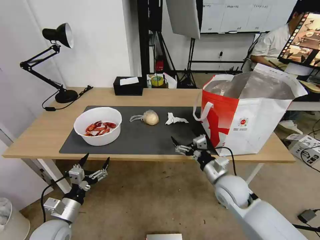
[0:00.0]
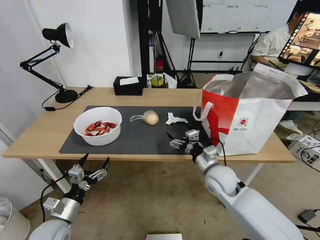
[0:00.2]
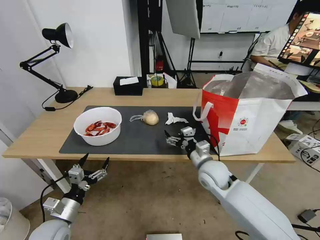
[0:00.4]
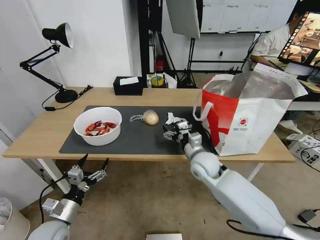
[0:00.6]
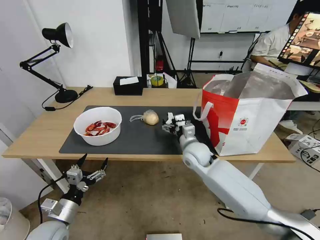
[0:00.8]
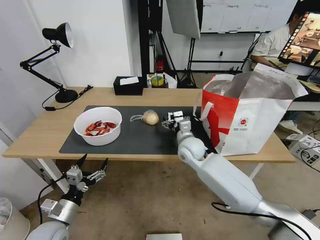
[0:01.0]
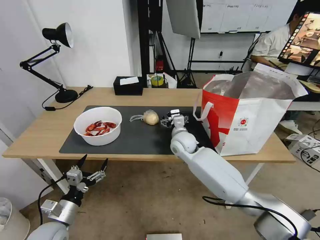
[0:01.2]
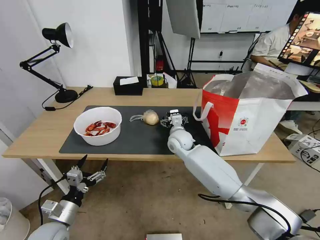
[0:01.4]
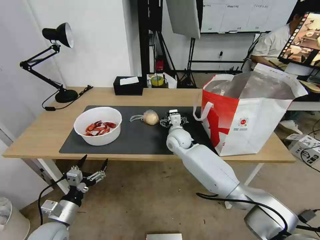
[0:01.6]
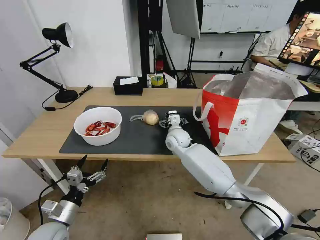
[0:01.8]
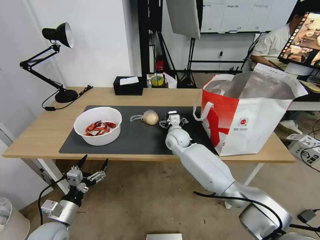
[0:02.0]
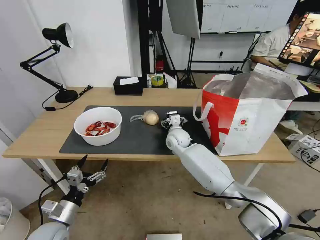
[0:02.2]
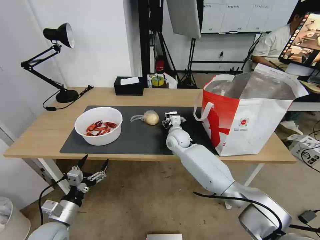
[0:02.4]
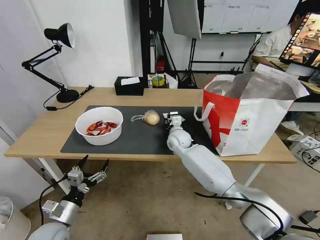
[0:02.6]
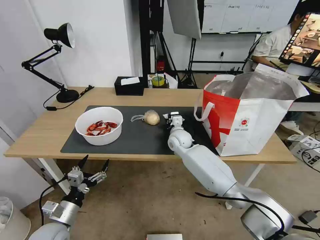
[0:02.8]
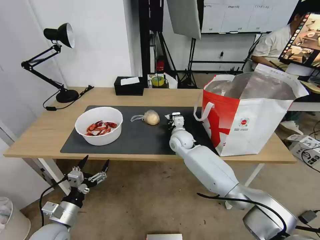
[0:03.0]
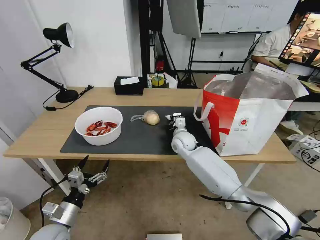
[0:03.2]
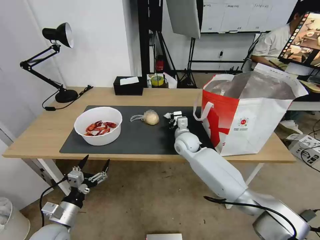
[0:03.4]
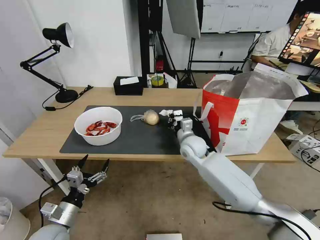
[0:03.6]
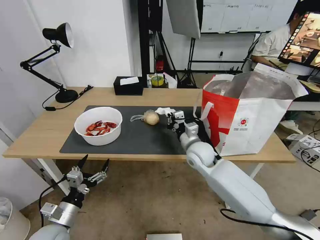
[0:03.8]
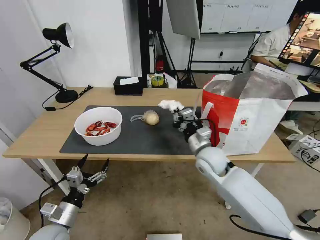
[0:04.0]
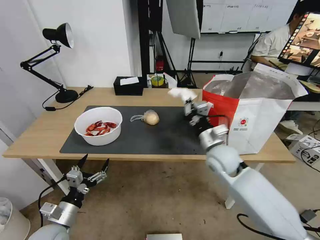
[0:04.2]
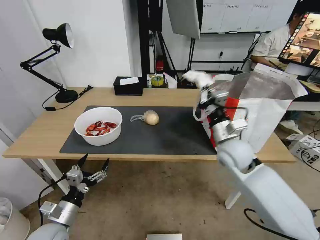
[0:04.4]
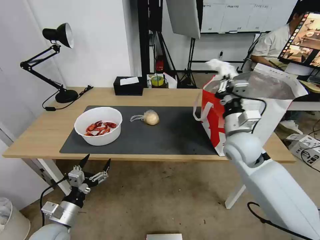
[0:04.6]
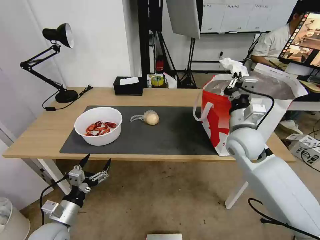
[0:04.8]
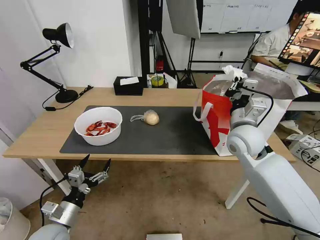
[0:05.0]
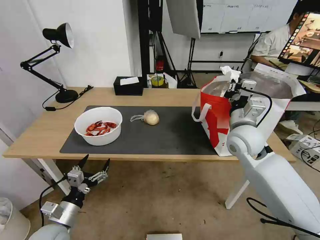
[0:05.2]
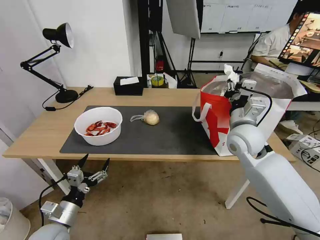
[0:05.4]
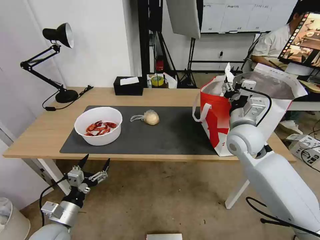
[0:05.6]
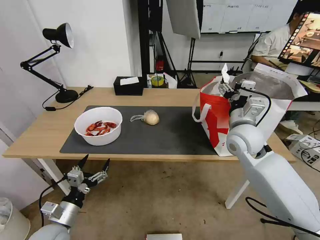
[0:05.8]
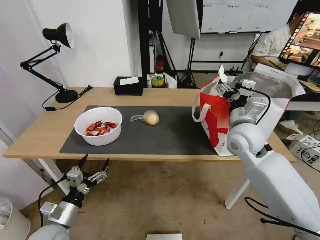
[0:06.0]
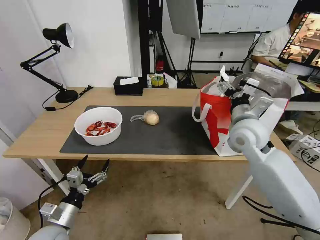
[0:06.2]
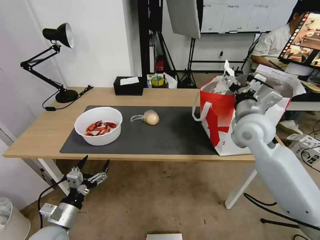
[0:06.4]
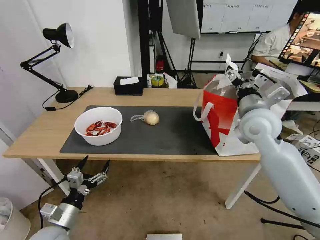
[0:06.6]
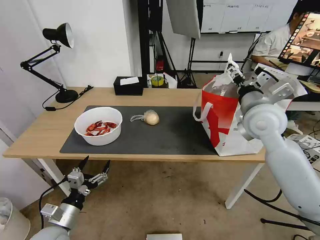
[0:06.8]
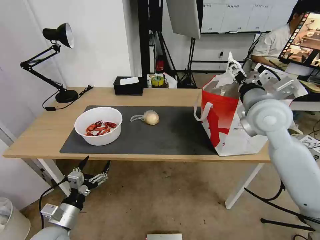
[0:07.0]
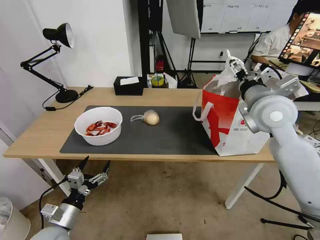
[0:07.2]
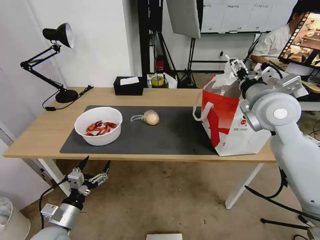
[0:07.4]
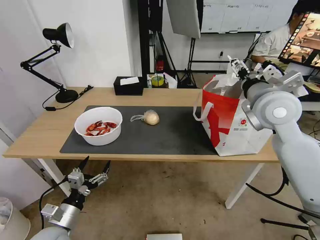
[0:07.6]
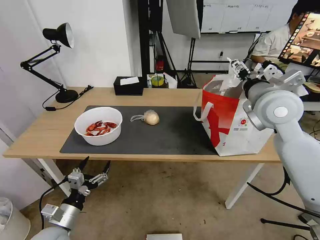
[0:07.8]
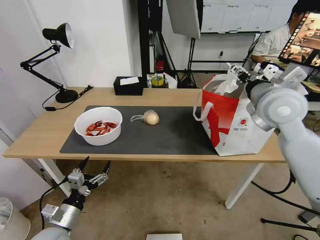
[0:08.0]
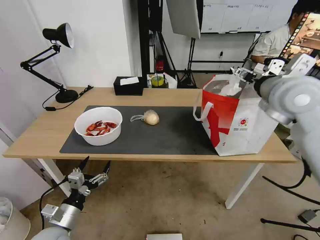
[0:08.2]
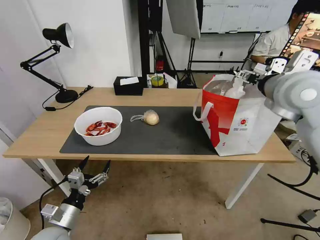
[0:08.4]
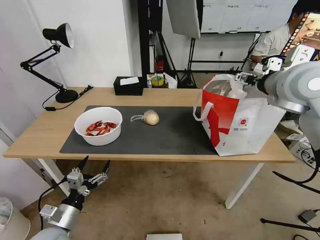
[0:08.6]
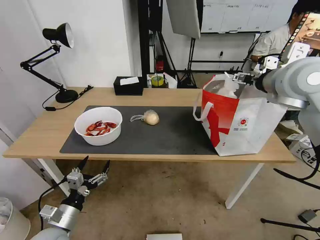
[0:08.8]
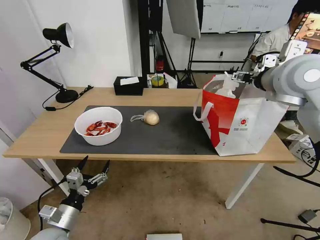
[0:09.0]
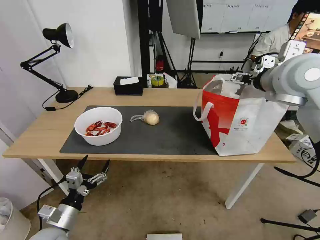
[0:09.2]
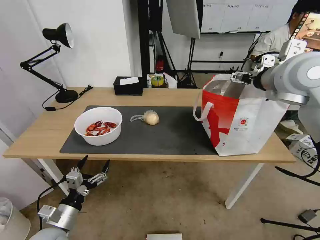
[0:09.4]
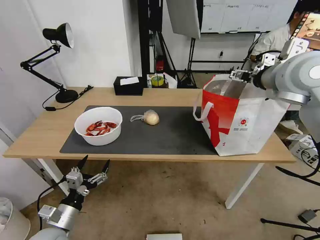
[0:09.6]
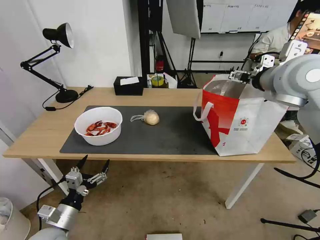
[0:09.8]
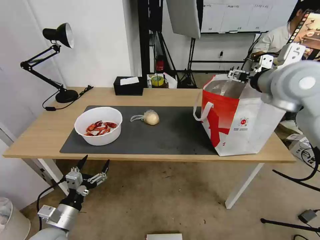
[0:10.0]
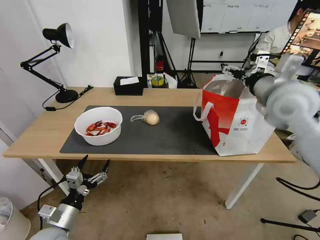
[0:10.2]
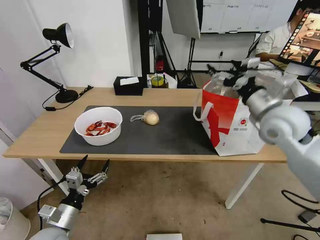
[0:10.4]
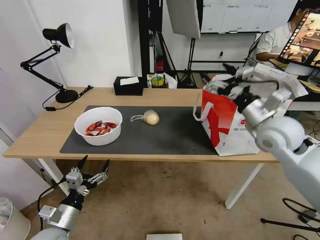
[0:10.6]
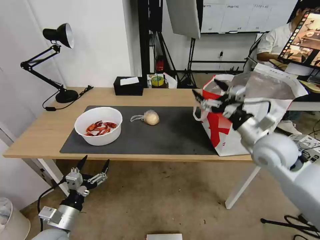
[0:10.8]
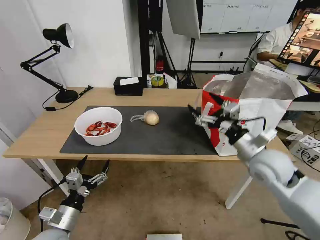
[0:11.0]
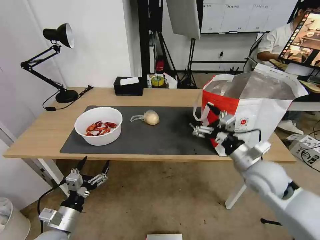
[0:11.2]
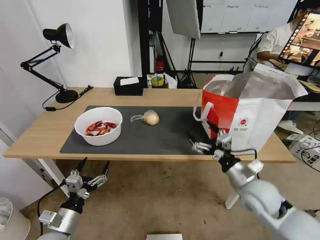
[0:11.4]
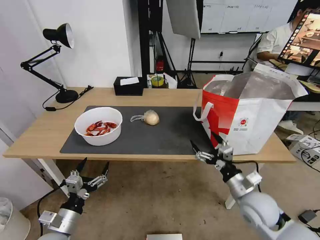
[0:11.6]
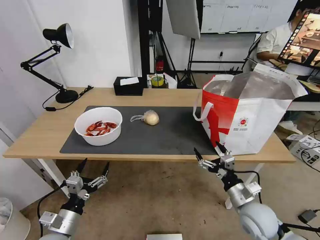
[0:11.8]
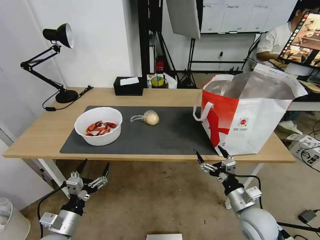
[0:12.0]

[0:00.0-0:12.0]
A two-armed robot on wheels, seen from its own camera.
Task of the whole recording: Pick up the trash from the table and place it into the takeout bag.
0:00.0 to 0:01.6: The right gripper shifts about 25 cm forward and to the left.
0:01.6 to 0:03.0: The right gripper closes up.
0:03.0 to 0:04.4: The right gripper goes approximately 20 cm backward, to the right and upward.
0:04.4 to 0:06.0: The right gripper ends up approximately 5 cm from where it was, and opens up.
0:06.0 to 0:07.6: The right gripper heads upward, covering approximately 10 cm.
0:07.6 to 0:09.0: The right gripper moves upward, approximately 10 cm.
0:09.0 to 0:10.4: The right gripper moves downward, some 10 cm.
0:10.4 to 0:12.0: The right gripper heads downward and backward, covering some 30 cm.

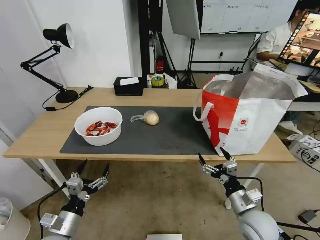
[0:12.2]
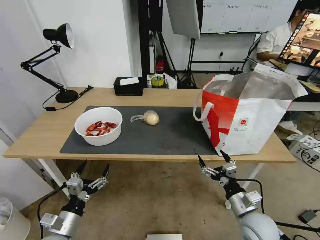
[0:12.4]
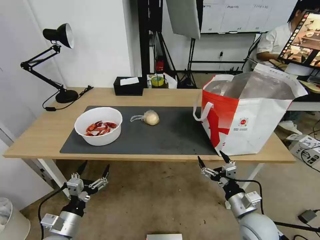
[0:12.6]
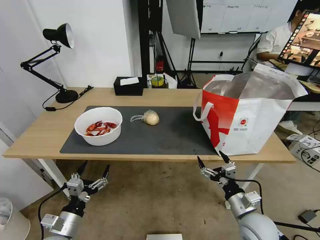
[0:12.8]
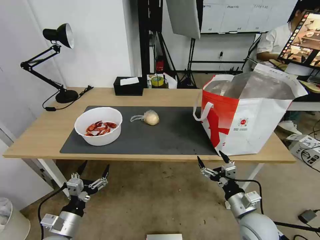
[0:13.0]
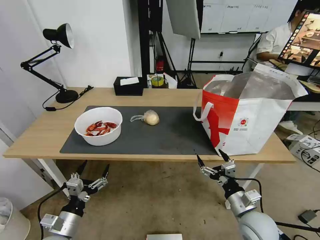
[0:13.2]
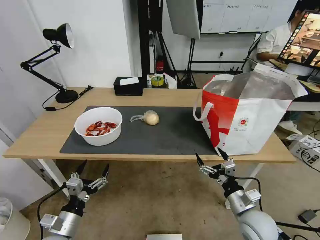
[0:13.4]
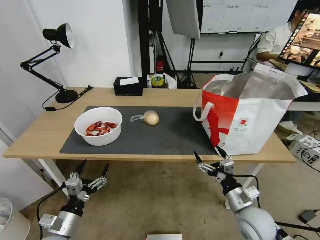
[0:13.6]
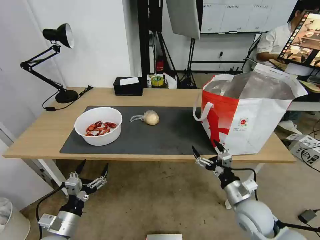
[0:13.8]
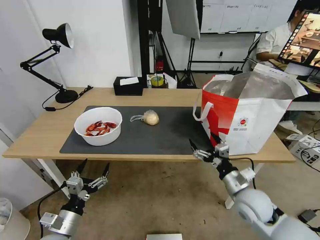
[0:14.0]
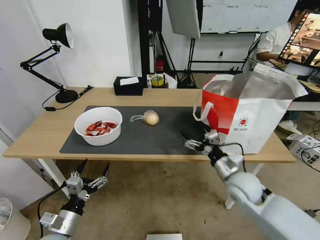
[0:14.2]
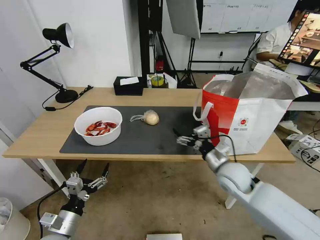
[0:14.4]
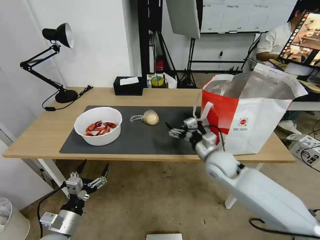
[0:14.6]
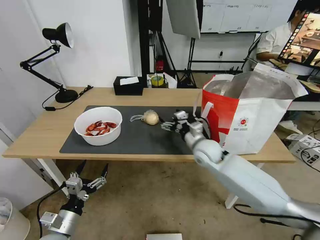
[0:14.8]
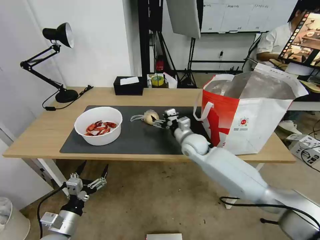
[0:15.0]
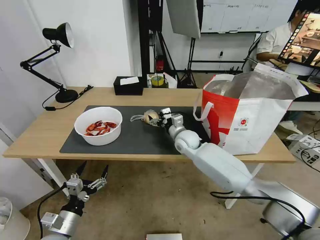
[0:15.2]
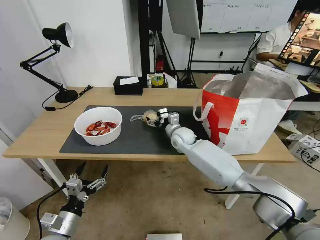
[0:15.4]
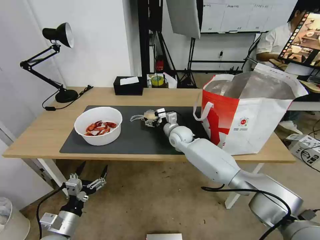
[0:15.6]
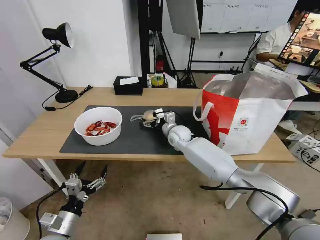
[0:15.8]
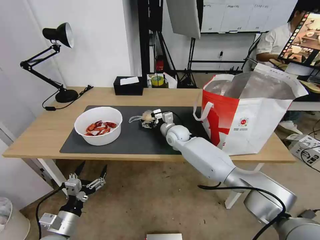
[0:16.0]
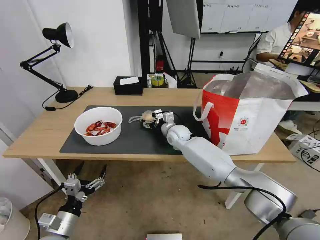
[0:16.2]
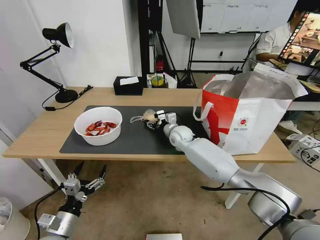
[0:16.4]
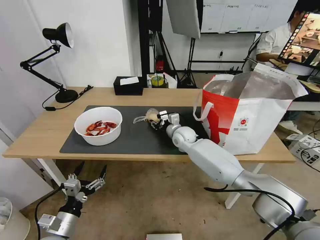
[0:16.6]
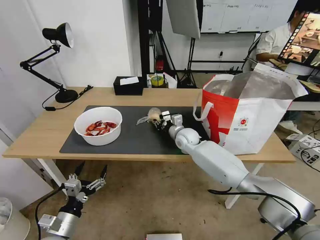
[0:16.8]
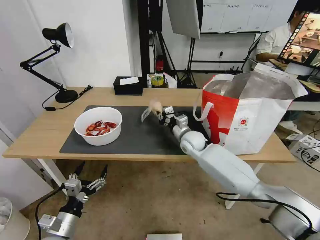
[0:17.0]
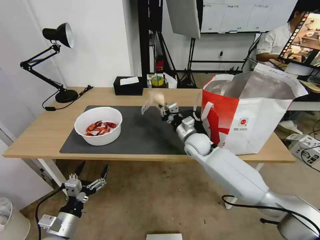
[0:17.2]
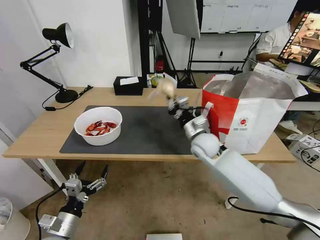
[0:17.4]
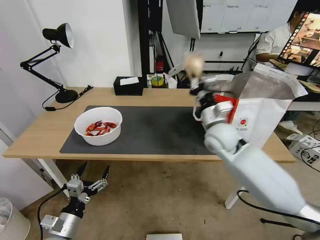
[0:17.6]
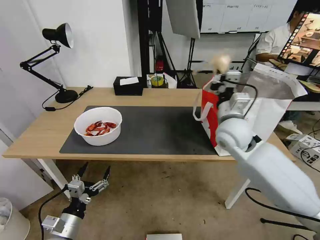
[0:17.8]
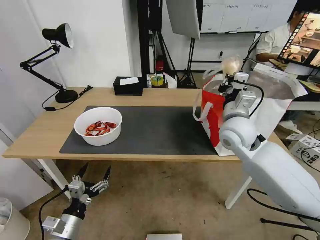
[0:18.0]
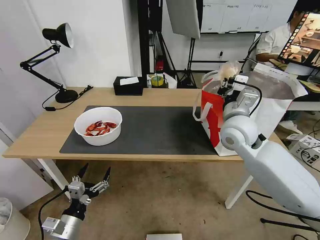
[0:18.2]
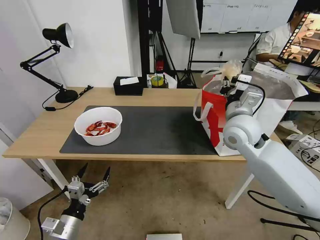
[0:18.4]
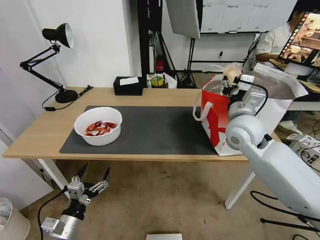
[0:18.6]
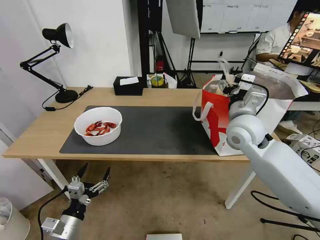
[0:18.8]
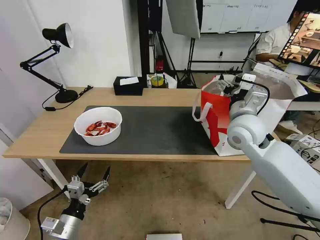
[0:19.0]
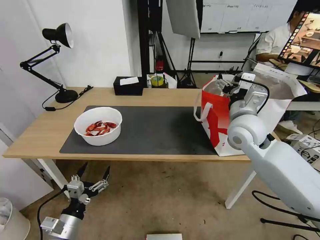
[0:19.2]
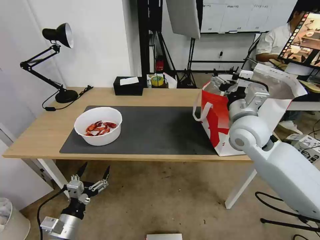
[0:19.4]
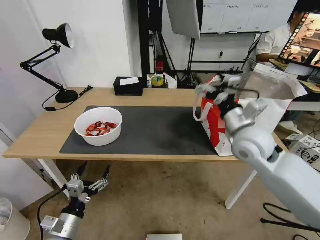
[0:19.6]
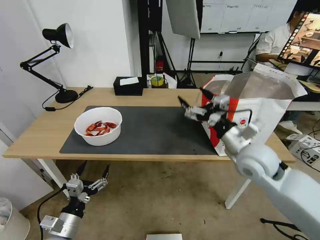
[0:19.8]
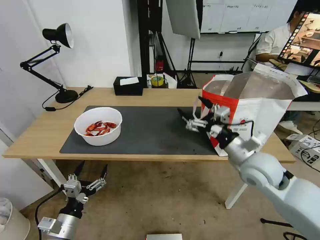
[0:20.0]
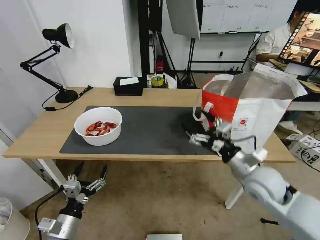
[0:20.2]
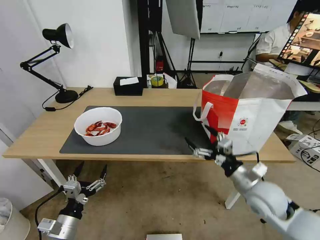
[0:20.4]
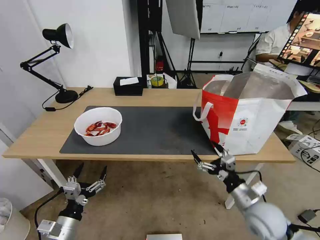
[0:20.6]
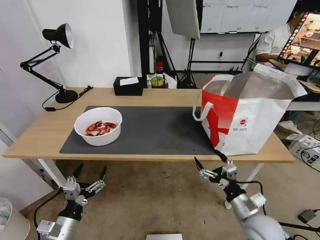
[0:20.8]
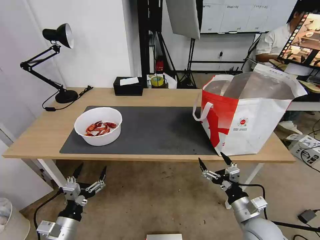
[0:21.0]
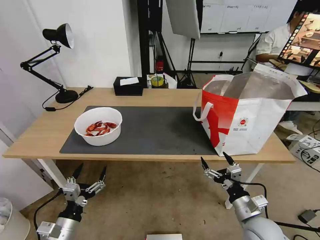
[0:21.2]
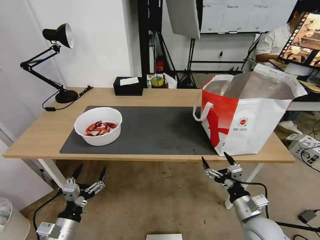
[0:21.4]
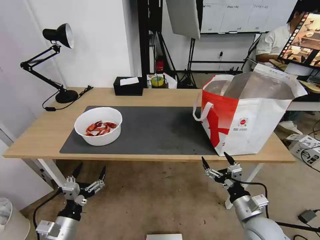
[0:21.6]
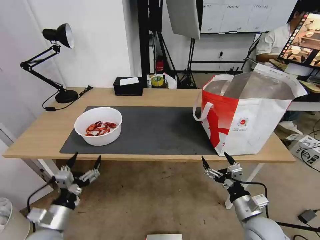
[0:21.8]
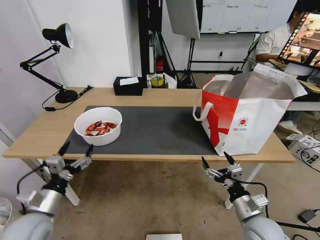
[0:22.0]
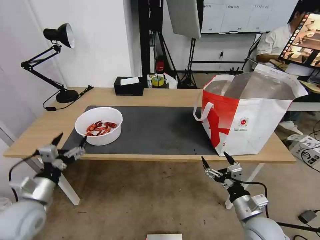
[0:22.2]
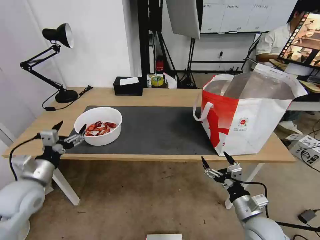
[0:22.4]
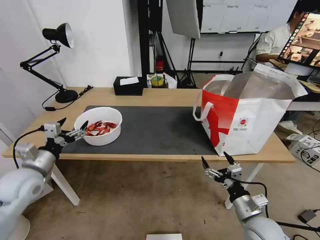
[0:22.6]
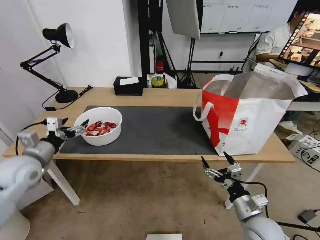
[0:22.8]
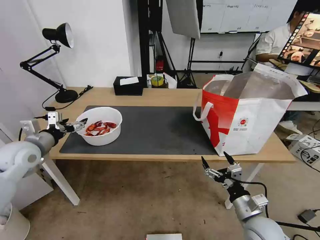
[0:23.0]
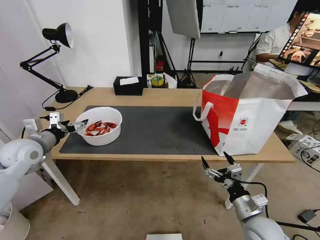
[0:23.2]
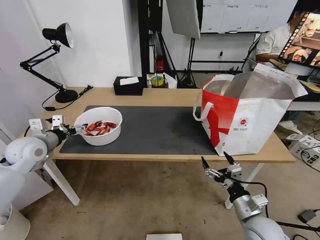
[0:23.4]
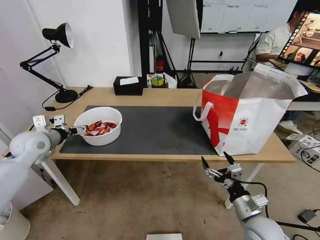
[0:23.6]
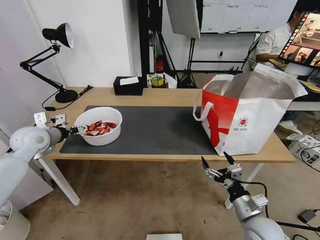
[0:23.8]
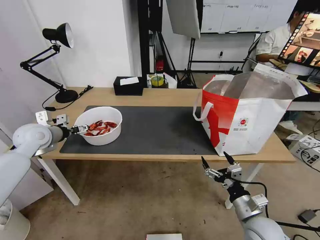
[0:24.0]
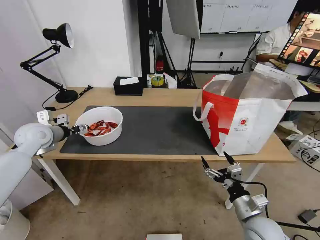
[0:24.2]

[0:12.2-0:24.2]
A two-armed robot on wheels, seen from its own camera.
Task of the whole recording: Pick up the trash from the table and place it into the takeout bag.
0:12.2 to 0:13.8: The grippers make only small movements.
0:13.8 to 0:15.2: The right gripper goes about 30 cm forward and to the left.
0:15.2 to 0:16.6: The right gripper closes.
0:16.6 to 0:18.2: The right gripper moves upward, backward and to the right, approximately 25 cm.
0:18.2 to 0:19.8: The right gripper heads backward, covering about 5 cm, and opens its fingers.
0:19.8 to 0:21.2: The right gripper is displaced downward and backward by some 25 cm.
0:21.2 to 0:22.6: The left gripper heads forward, upward and to the left, covering some 25 cm.
0:22.6 to 0:24.2: The left gripper goes about 15 cm forward.
